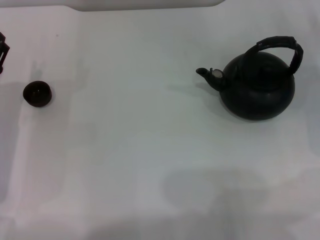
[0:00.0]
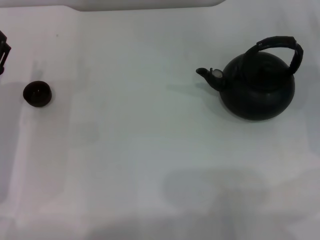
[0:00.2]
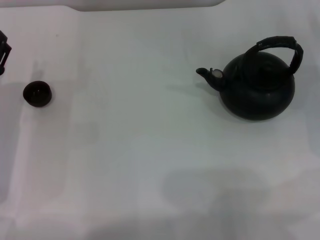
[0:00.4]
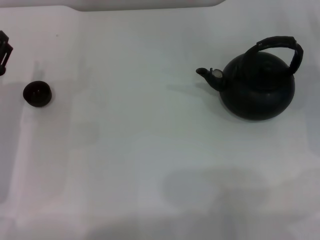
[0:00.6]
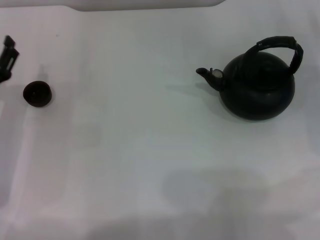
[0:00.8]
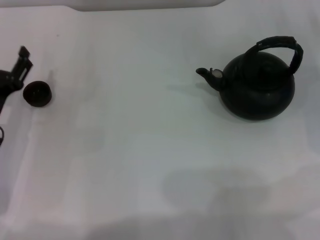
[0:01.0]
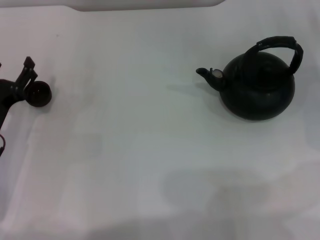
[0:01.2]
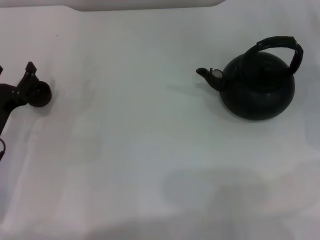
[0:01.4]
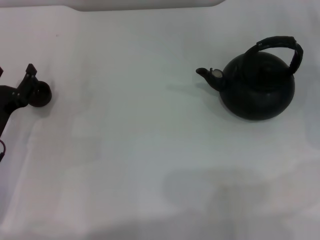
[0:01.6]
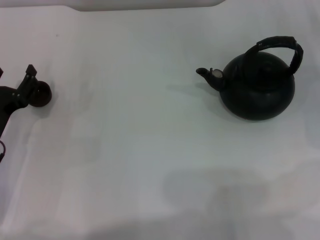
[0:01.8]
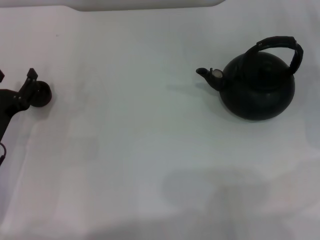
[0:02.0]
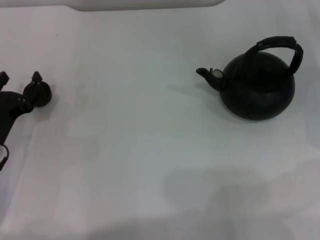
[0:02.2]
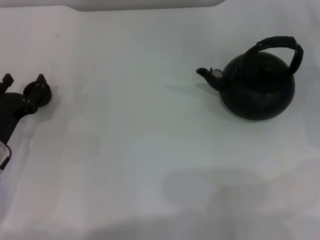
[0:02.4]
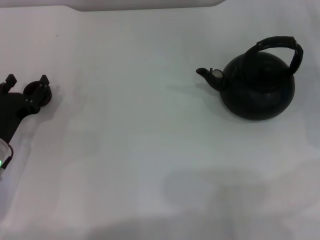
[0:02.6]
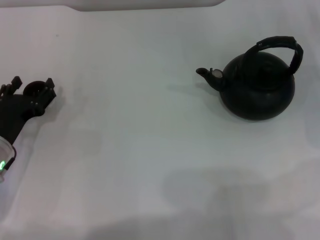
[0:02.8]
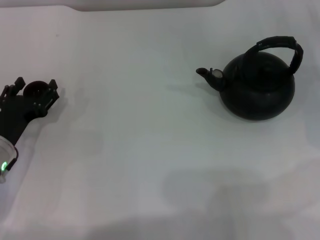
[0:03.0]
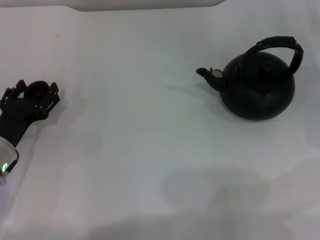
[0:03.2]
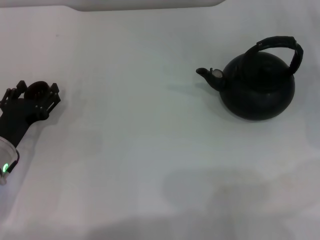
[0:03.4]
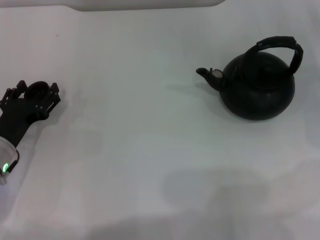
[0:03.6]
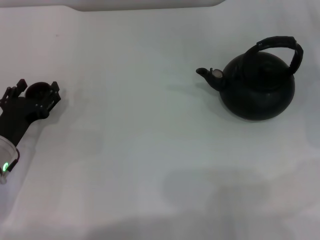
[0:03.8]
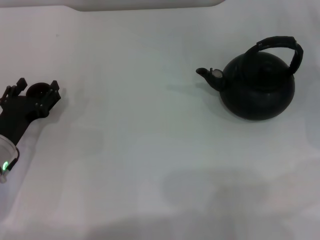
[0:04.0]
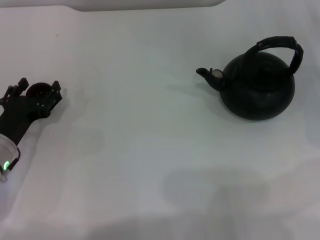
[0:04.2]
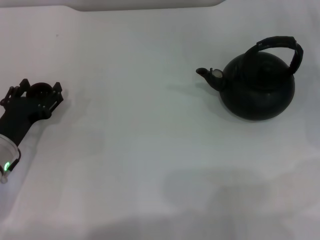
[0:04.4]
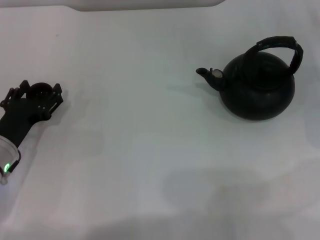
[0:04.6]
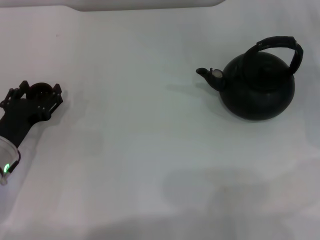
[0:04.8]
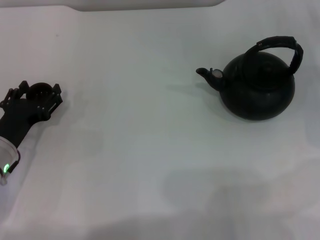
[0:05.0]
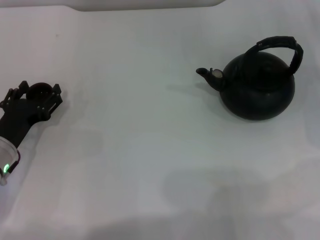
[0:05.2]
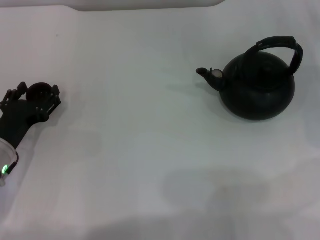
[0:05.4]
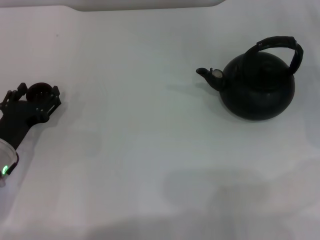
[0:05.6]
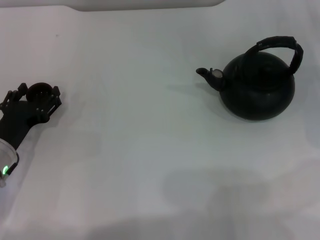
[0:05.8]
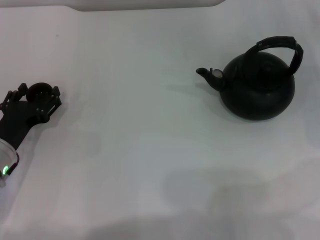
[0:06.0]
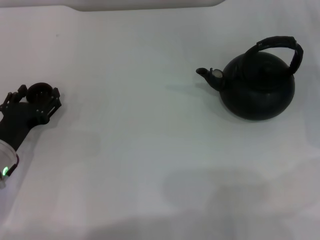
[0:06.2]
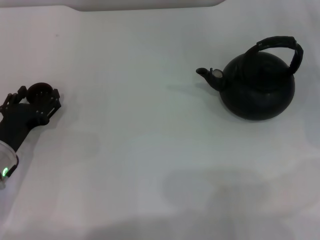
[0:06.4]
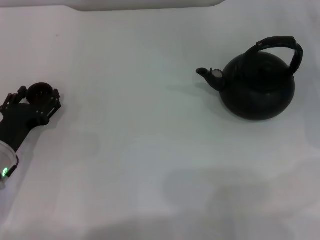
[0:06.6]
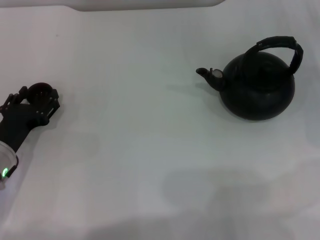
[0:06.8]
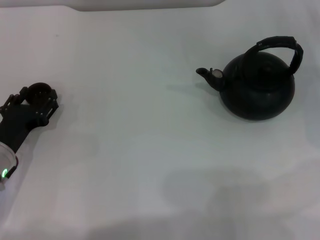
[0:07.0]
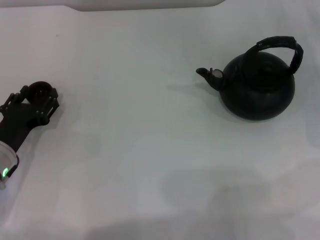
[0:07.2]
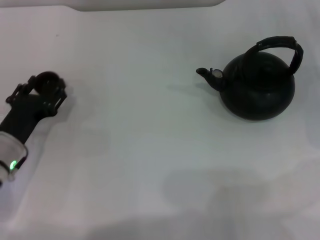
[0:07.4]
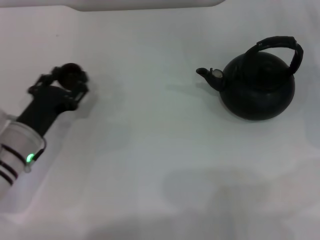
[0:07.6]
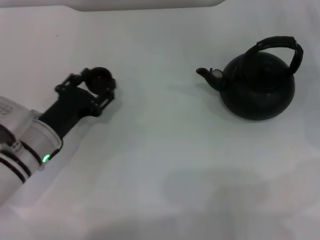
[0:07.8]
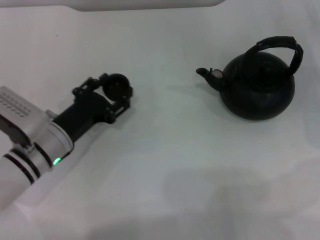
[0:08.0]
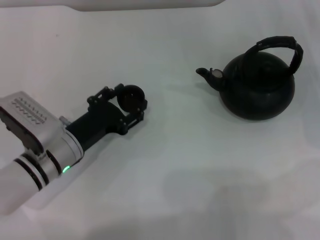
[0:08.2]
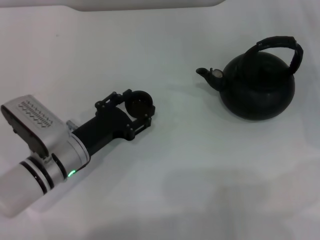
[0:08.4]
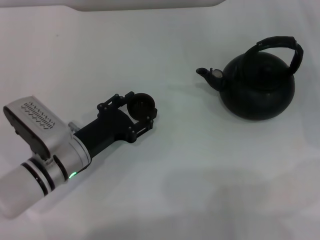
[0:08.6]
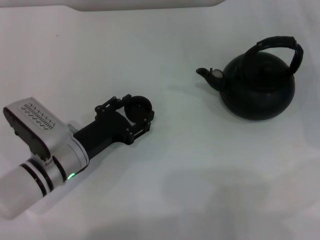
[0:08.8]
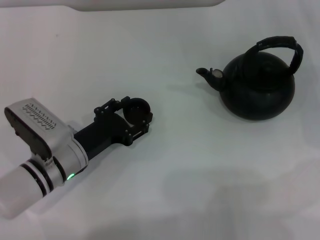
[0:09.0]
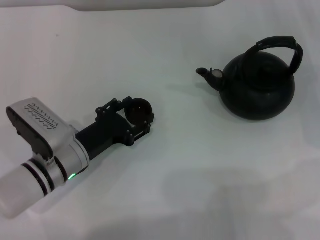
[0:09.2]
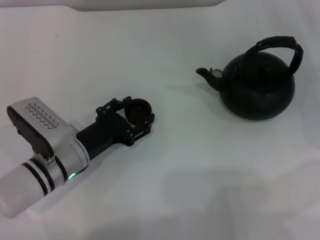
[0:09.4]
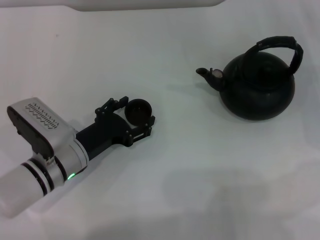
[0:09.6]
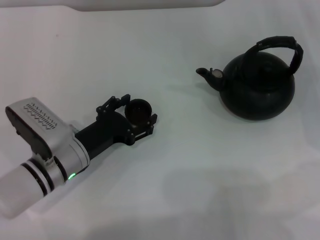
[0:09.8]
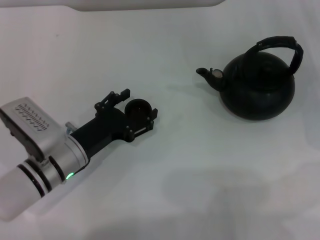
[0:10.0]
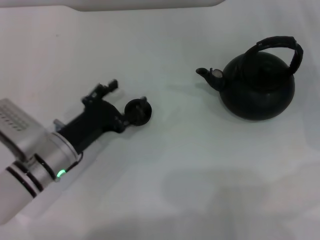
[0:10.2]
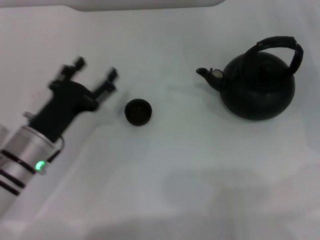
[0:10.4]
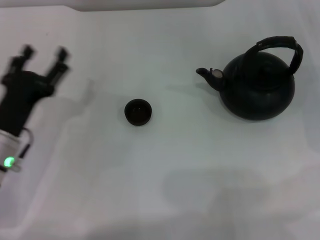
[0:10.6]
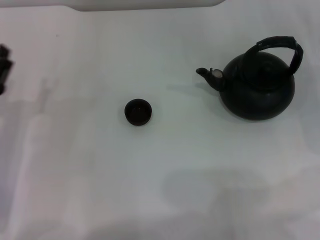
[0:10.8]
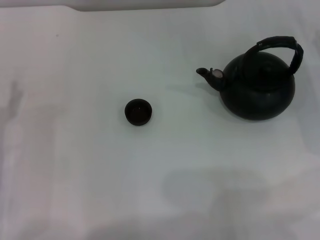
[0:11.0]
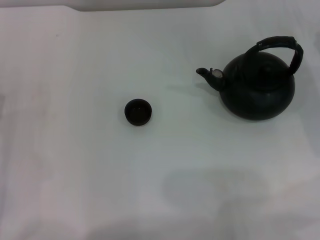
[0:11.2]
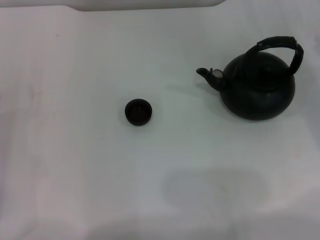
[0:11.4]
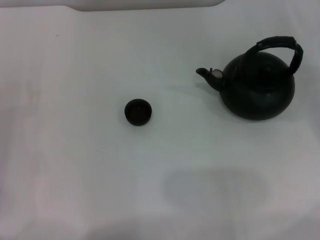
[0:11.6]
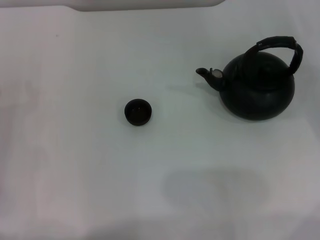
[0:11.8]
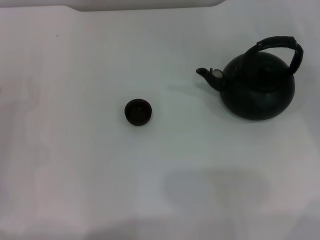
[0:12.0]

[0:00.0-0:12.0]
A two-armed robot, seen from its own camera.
Task of the whole recording: Grasp the handle of the teapot with one hand and pour tea into the teacup.
Step, 0:00.0 to 0:07.2: Pick up the teacup with the left gripper.
Step, 0:07.6 to 0:10.2: Place the teacup in the center of view with the left gripper.
0:00.0 to 0:01.6: The grippers move only a little.
0:01.6 to 0:03.0: The grippers make only small movements.
0:03.0 to 0:06.0: The two grippers keep their place.
0:06.0 to 0:07.6: The left gripper closes.
0:07.6 to 0:09.0: The left gripper travels to the right by some 5 cm.
0:09.0 to 0:10.4: The left gripper opens its fingers.
0:10.4 to 0:12.0: The left gripper shifts approximately 10 cm to the left.

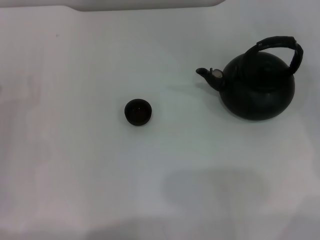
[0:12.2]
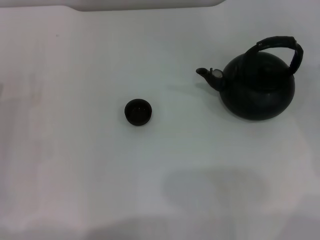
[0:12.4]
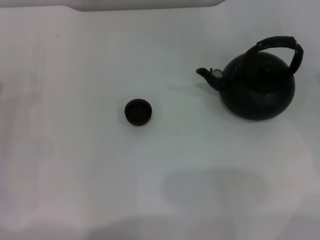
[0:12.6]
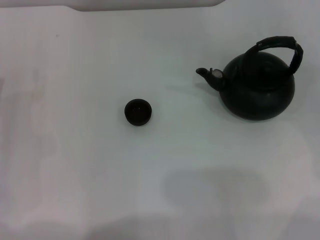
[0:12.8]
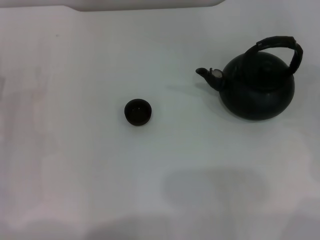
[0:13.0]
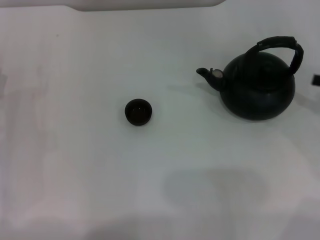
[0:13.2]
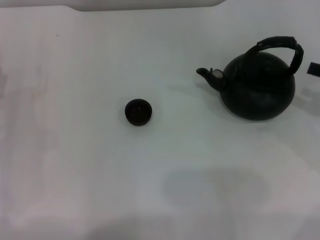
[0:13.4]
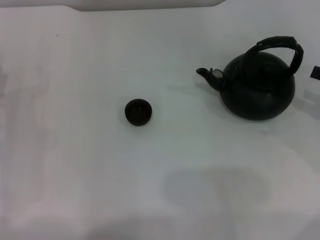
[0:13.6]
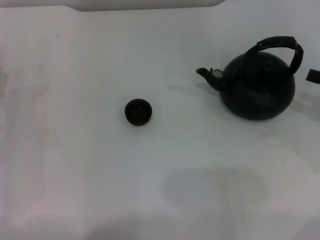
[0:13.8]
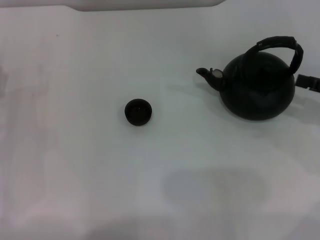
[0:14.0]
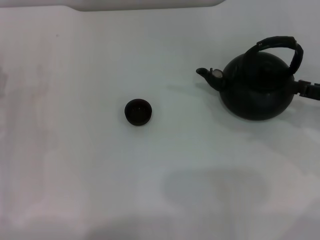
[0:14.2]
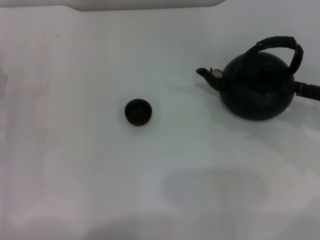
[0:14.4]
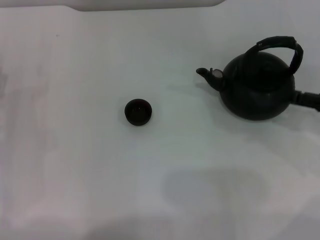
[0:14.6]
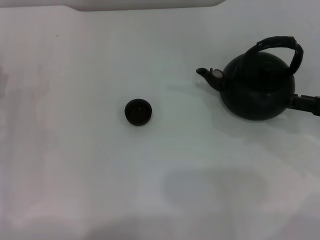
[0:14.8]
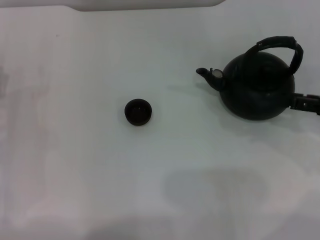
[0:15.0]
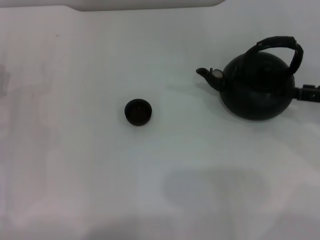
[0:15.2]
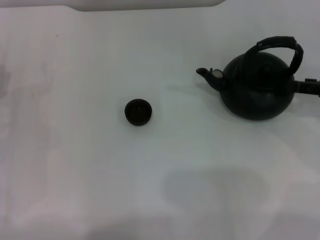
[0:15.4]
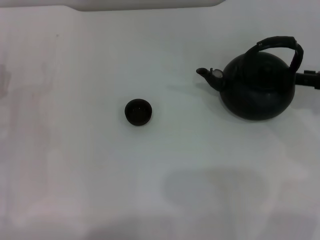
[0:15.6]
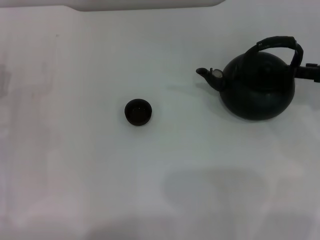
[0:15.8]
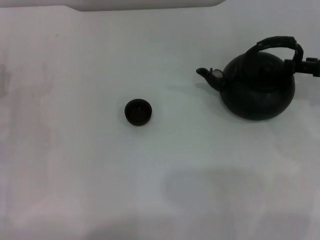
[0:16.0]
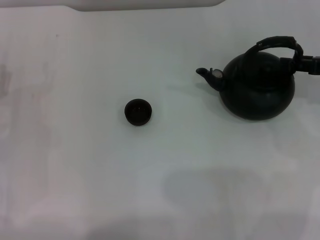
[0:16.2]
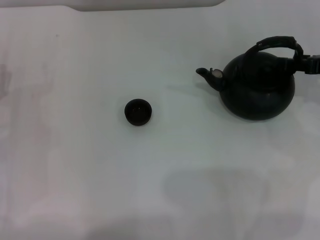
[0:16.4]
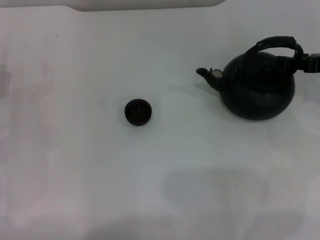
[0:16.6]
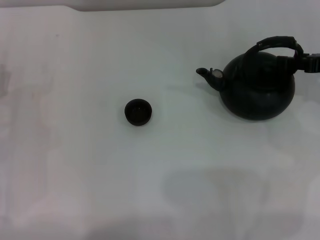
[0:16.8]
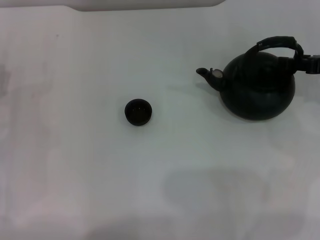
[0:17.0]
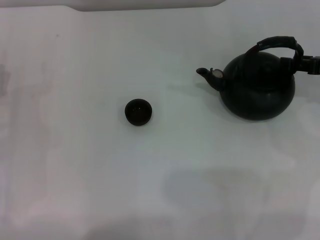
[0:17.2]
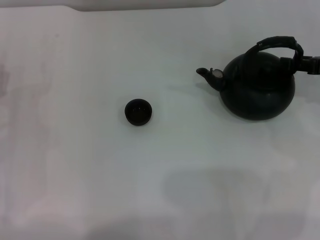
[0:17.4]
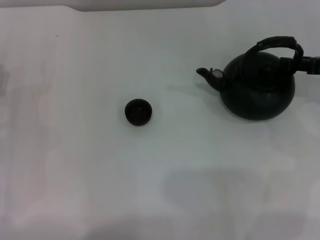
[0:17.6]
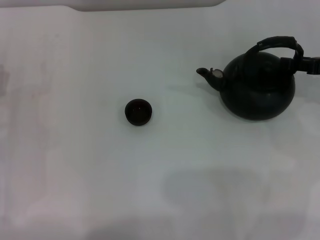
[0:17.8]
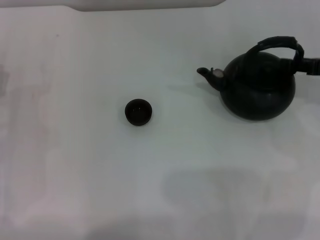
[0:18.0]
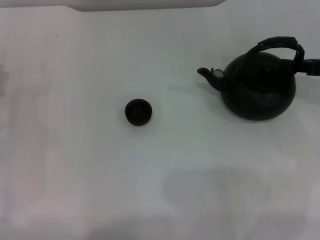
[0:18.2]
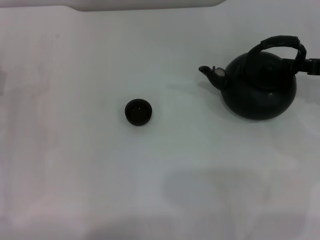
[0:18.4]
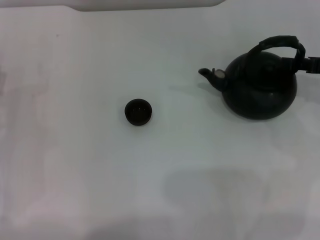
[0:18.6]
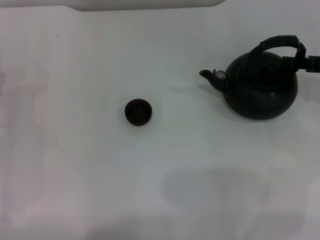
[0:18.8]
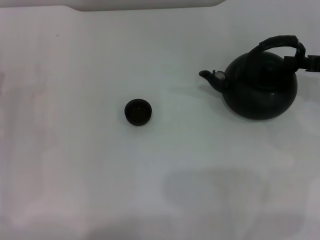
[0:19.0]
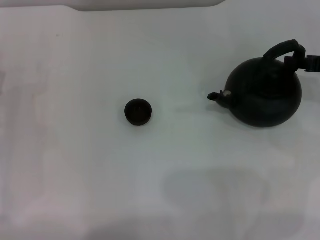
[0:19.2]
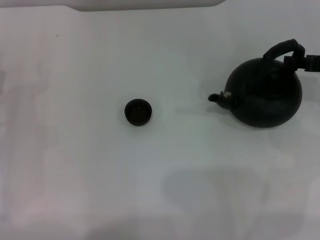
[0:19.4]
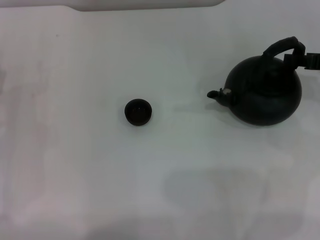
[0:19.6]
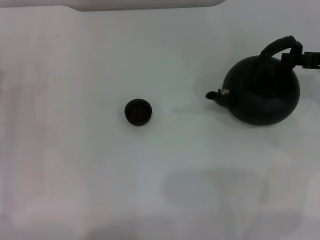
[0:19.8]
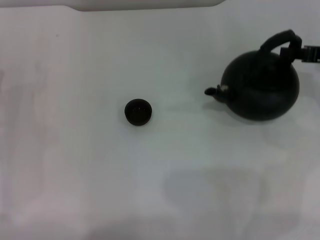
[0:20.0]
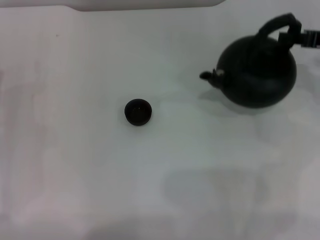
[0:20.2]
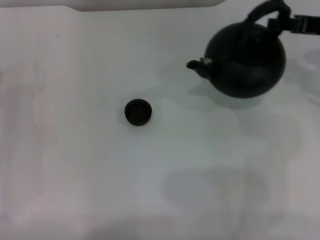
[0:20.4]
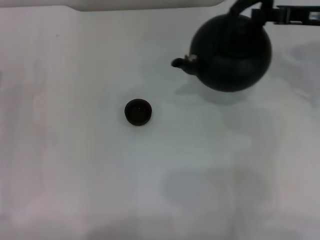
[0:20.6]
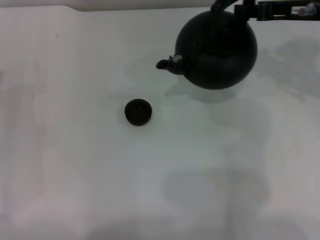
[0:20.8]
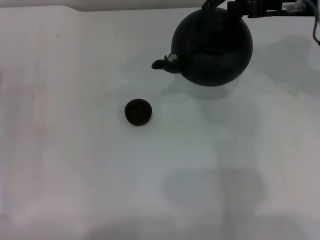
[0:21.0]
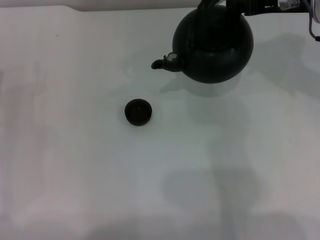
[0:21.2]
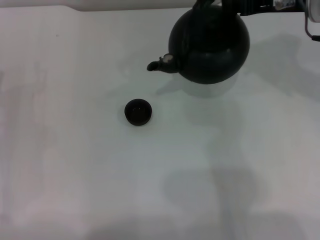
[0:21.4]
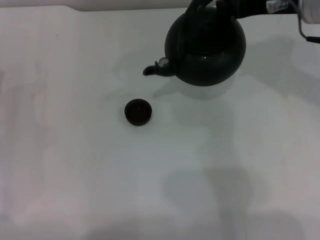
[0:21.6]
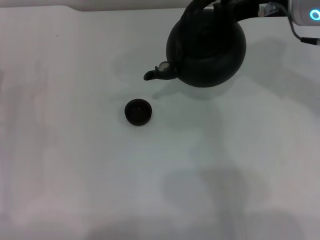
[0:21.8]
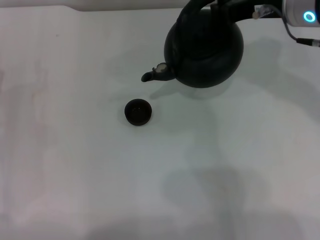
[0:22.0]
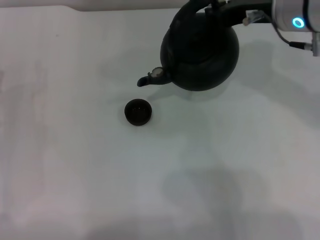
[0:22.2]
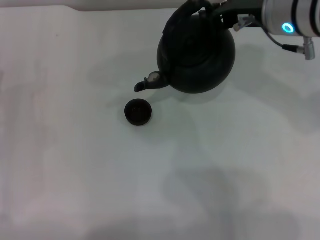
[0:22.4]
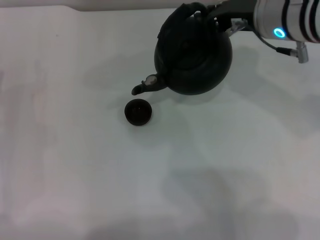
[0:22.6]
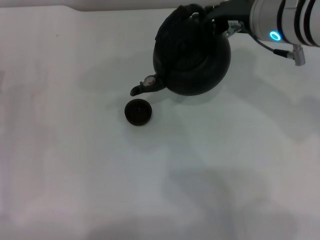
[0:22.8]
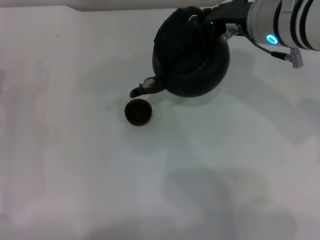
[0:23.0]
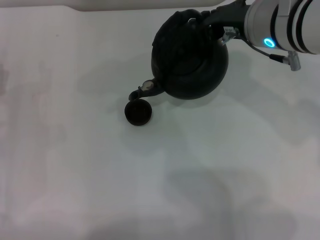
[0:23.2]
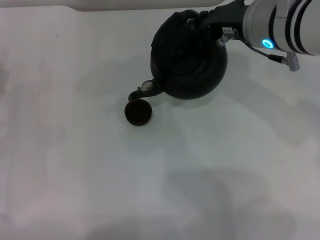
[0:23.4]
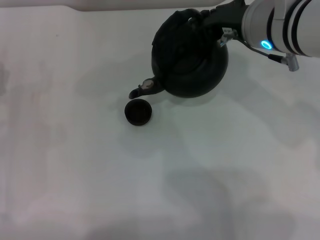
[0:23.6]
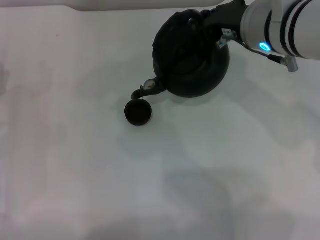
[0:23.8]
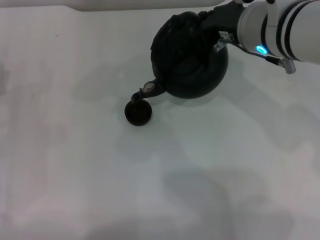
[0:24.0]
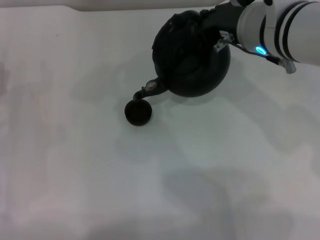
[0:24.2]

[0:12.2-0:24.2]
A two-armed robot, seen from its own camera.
Task of the whole recording: Grasp the handle of the teapot with one hand and pour tea into the teacup.
Step, 0:12.2 to 0:20.2: Pick up the teapot with the right gripper.
0:15.2 to 0:16.6: The right gripper shifts by some 5 cm.
0:16.6 to 0:18.2: Both grippers stay about where they are.
0:18.2 to 0:19.8: The right gripper closes up.
0:19.8 to 0:21.2: The right gripper heads to the left and upward, covering about 10 cm.
0:21.2 to 0:22.6: The right gripper travels to the left by approximately 10 cm.
0:22.6 to 0:24.2: There are only small adjustments of the grippers.
